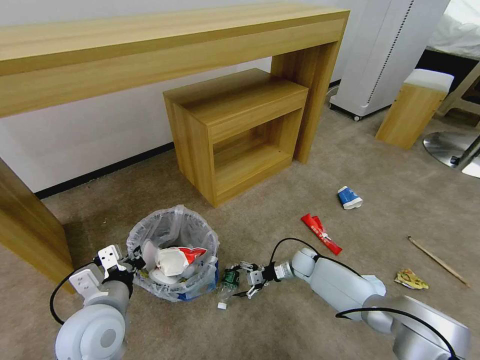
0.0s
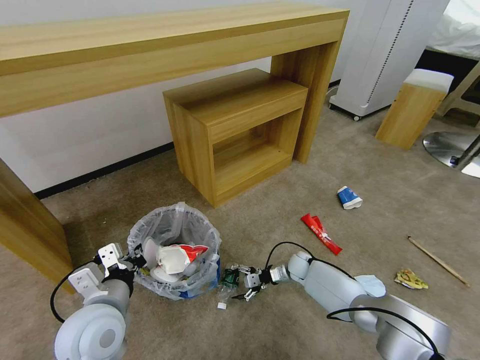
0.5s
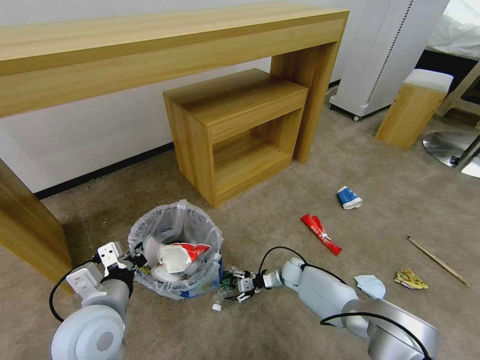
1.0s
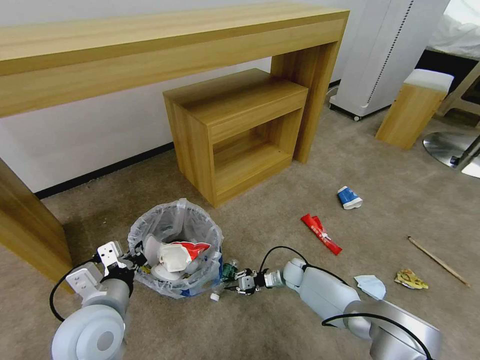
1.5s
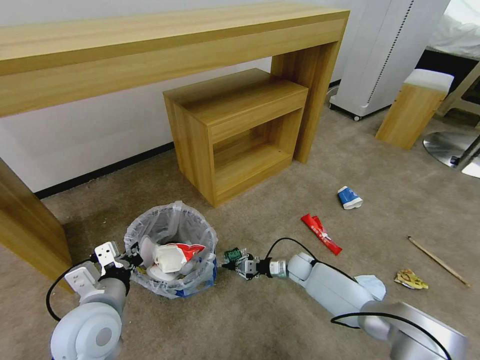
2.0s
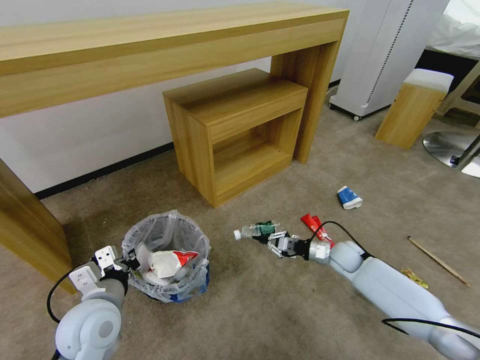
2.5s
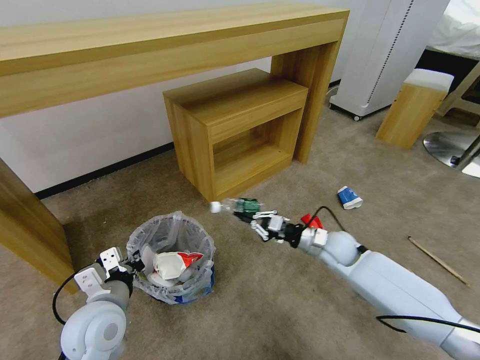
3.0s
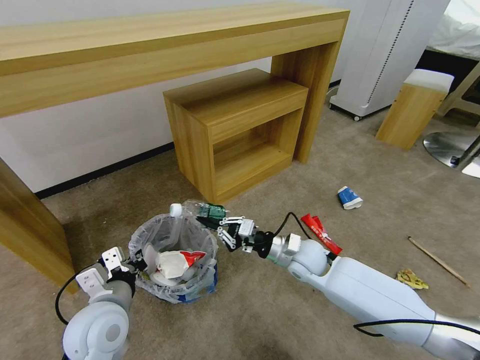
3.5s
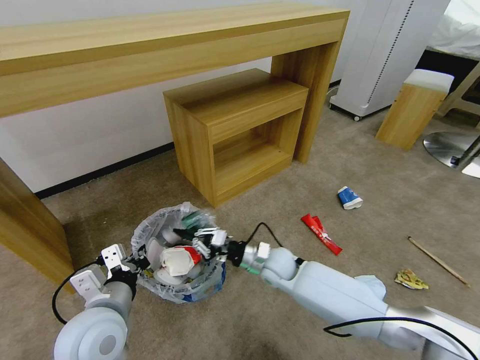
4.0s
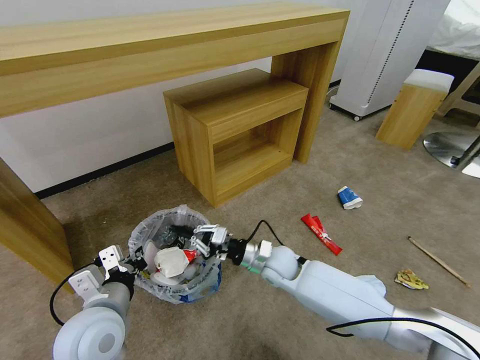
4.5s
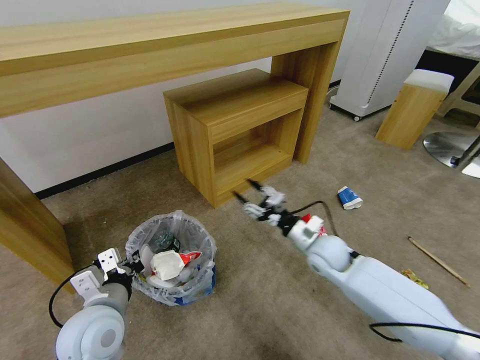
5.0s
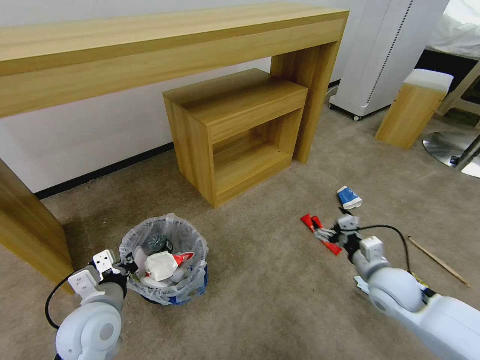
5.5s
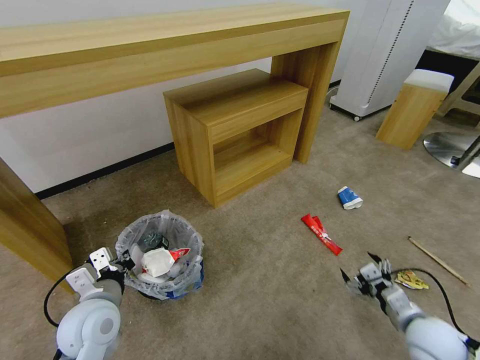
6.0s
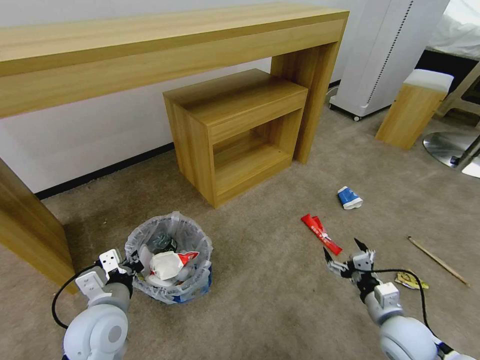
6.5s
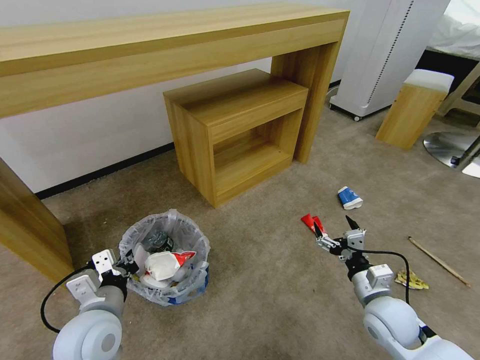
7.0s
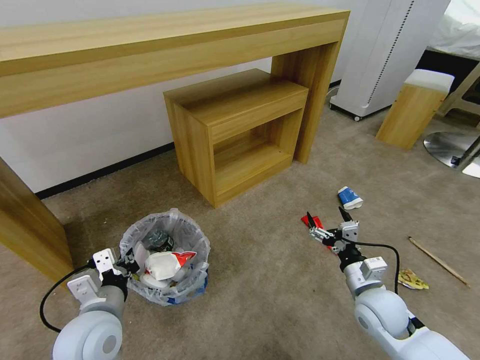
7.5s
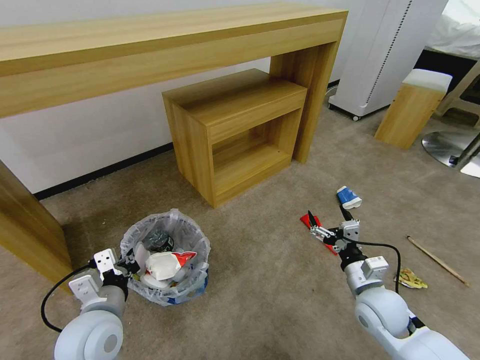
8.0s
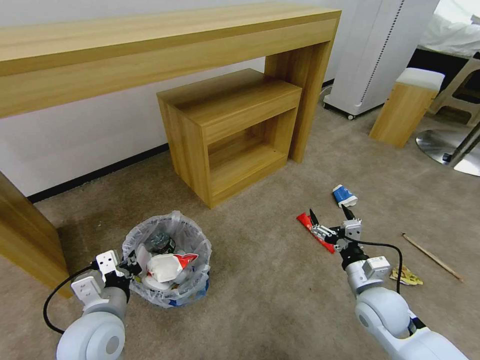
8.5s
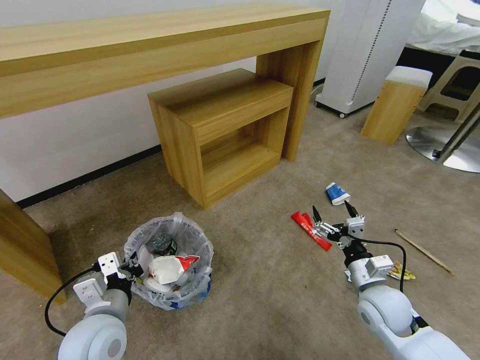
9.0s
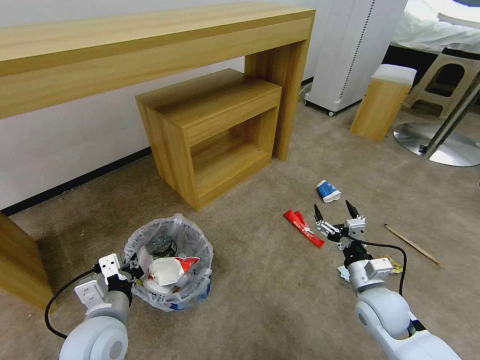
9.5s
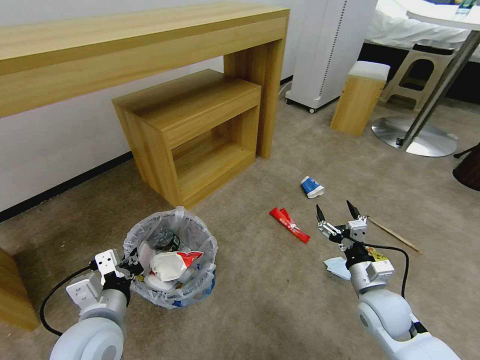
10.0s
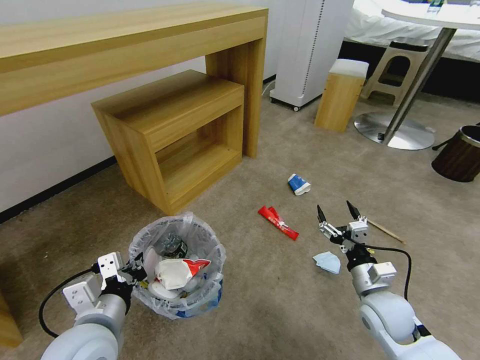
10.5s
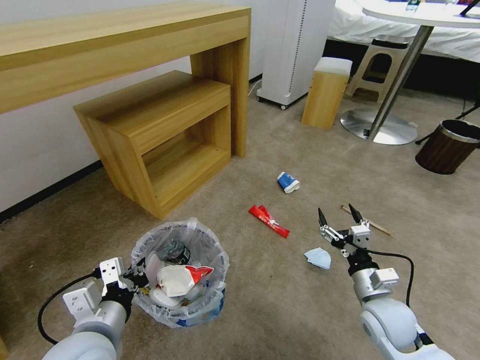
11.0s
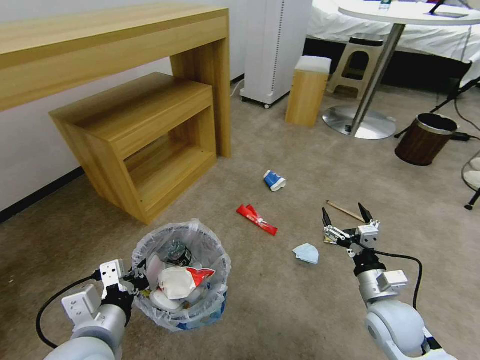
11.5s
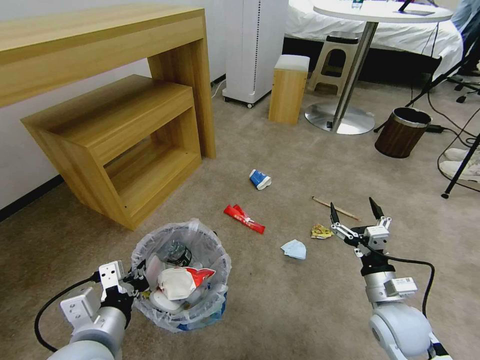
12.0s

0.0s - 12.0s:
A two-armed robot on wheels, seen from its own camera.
Task of the whole recording: Pick up the trash bin and place the garbage on the floor into it.
0.0s - 2.0s: The right gripper closes.
2.0s - 4.0s: The right gripper shifts roughly 20 cm upward, to the left and backward.
4.0s - 6.0s: The left gripper ends up about 5 cm from where it was. The right gripper is displaced to the right and backward by some 35 cm, and opens.
6.0s - 8.0s: The right gripper shifts approximately 10 cm to the left and forward.

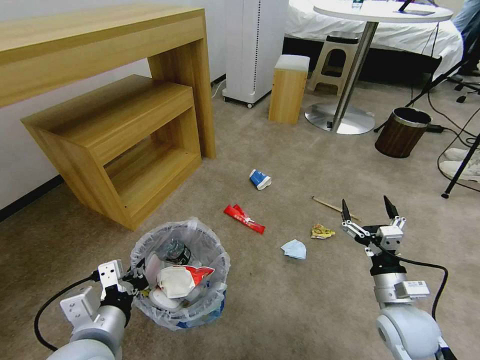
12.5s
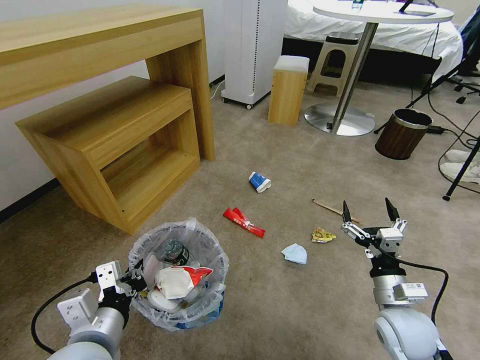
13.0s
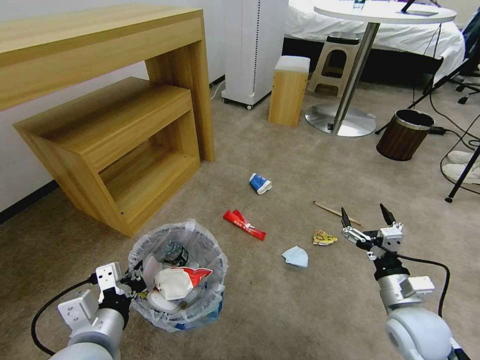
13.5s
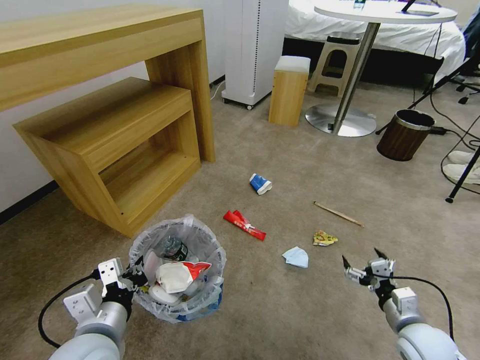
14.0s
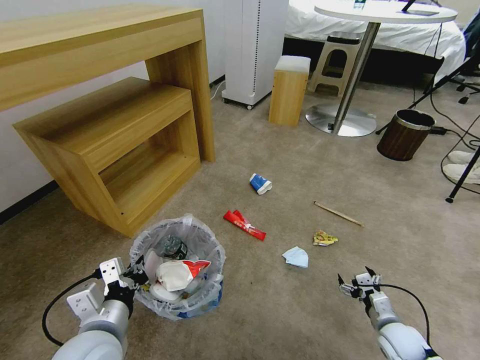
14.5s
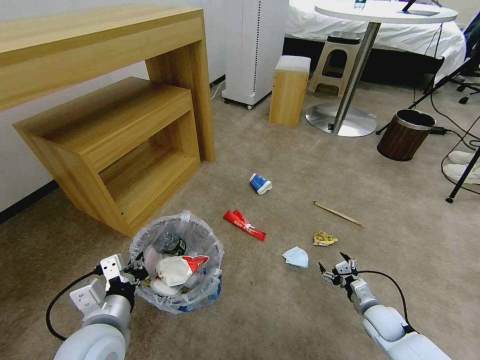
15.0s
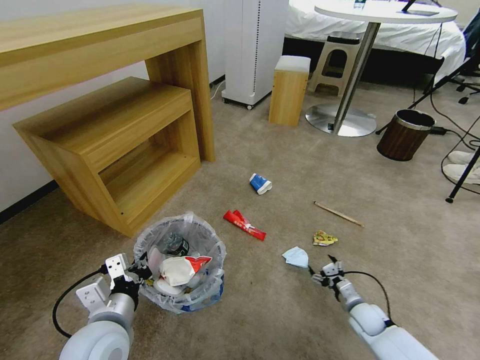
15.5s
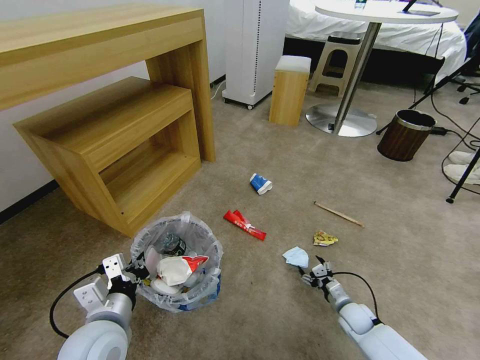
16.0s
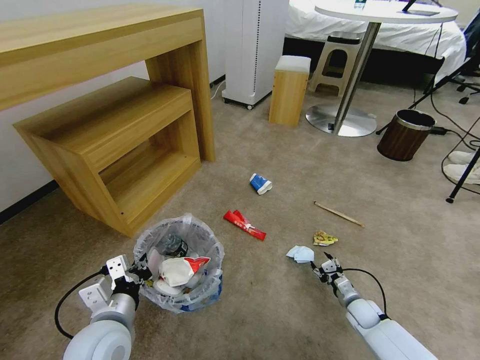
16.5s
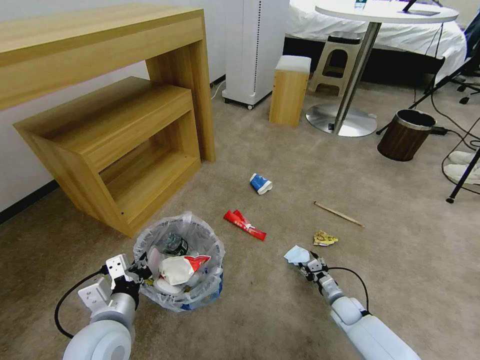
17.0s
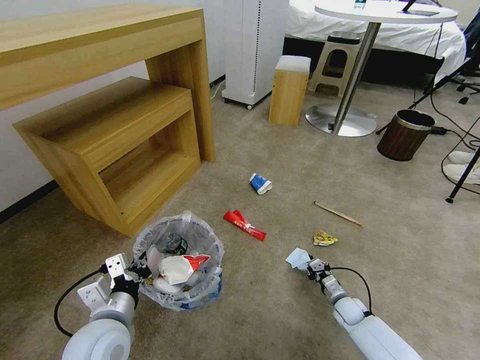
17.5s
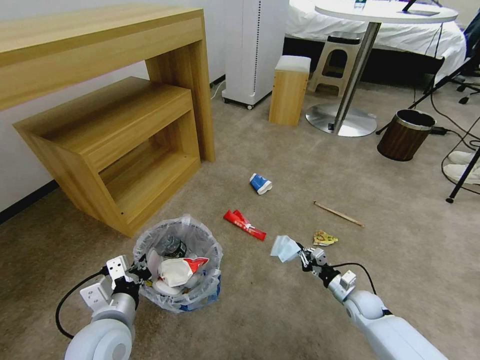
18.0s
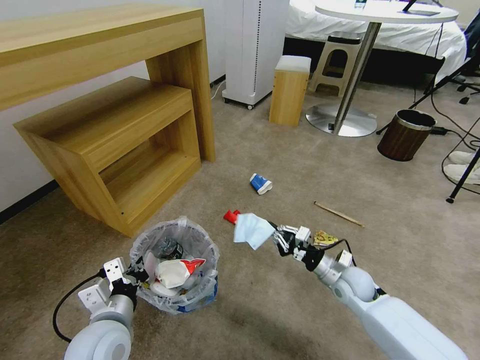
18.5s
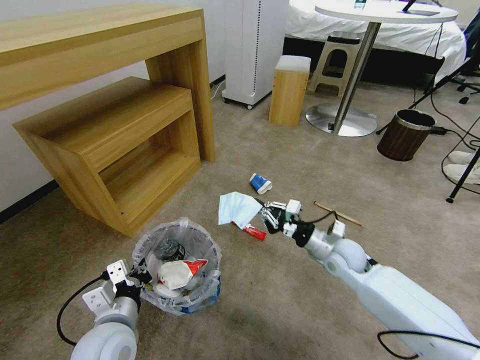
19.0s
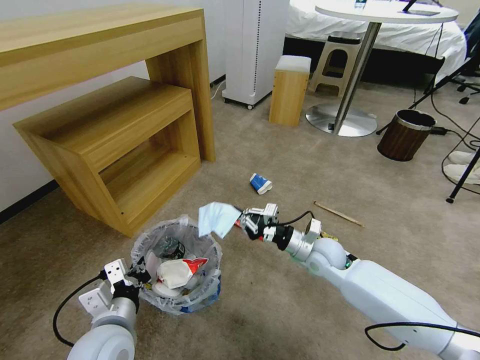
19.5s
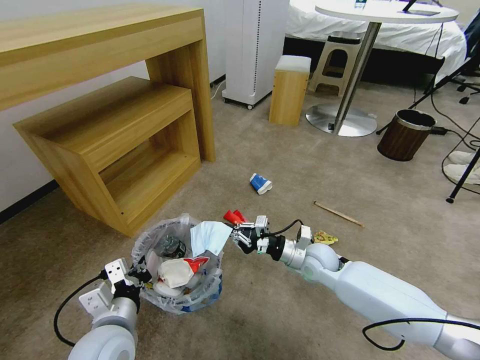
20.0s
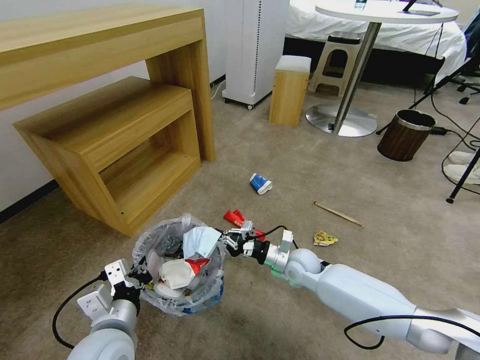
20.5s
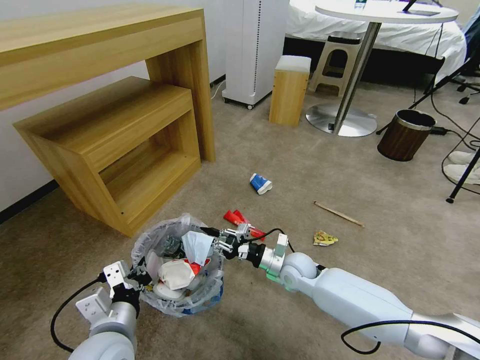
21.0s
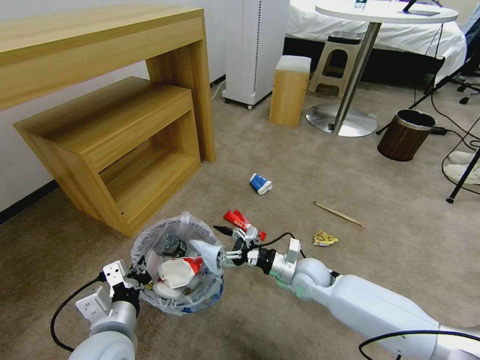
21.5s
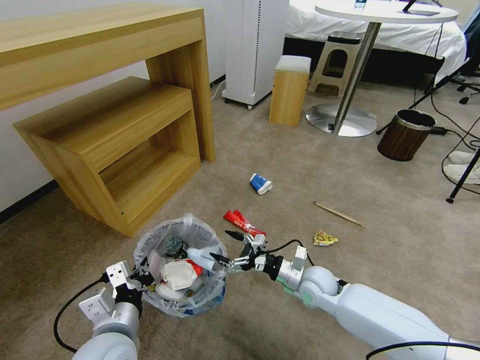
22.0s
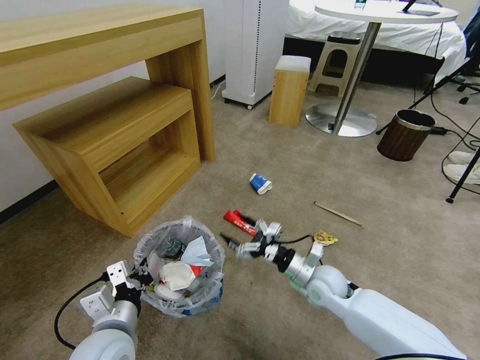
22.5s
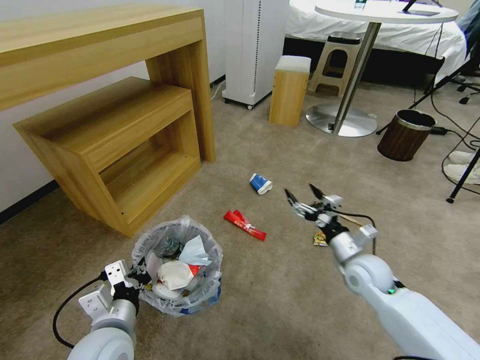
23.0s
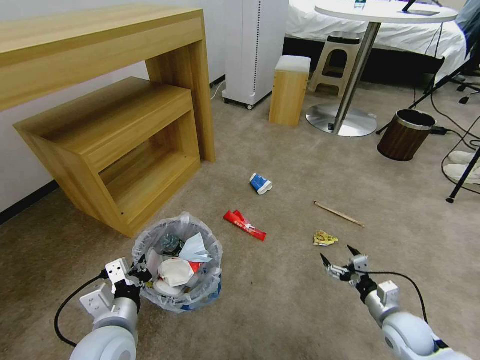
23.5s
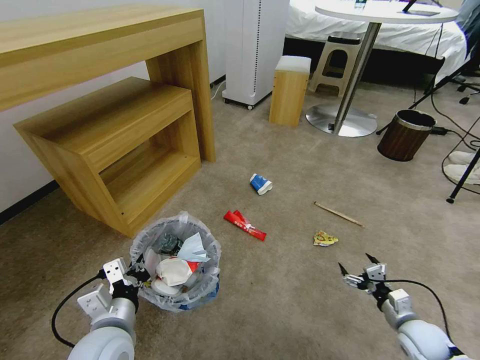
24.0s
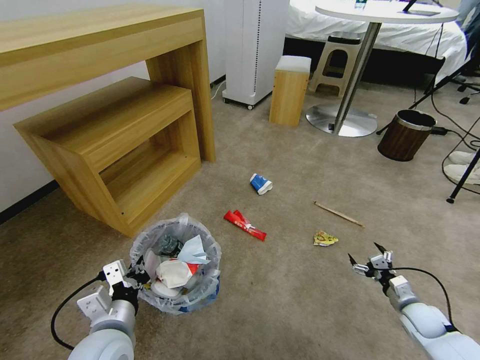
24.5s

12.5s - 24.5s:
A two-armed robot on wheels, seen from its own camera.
Task of the whole recording: Pick up the trash bin and place the garbage on the floor into it.
12.5s - 14.5s: The right gripper goes roughly 10 cm downward and to the right.
14.5s - 16.5s: The right gripper shifts roughly 15 cm downward and forward, and closes its fingers.
16.5s - 18.5s: The right gripper travels upward and to the left by approximately 20 cm, and closes.
18.5s - 20.5s: The right gripper travels to the left and forward by roughly 10 cm.
20.5s - 22.5s: The right gripper goes some 5 cm backward, and opens.
22.5s - 24.5s: The right gripper travels to the right by roughly 25 cm.

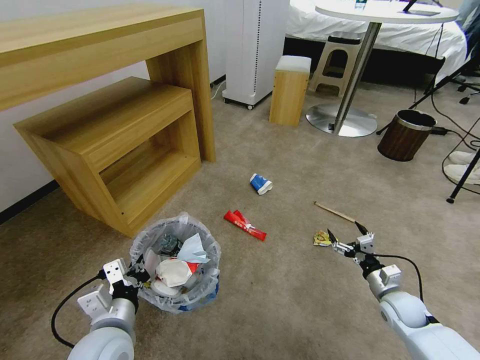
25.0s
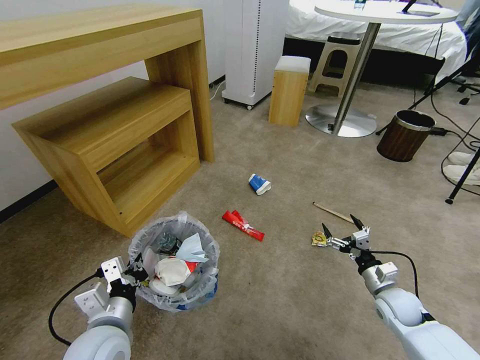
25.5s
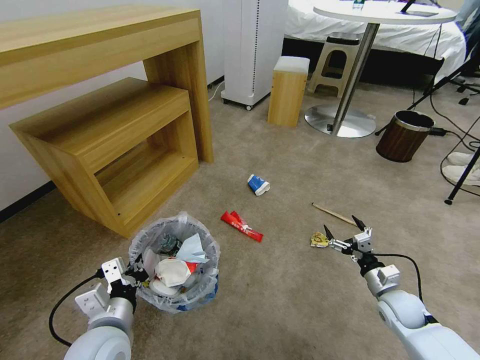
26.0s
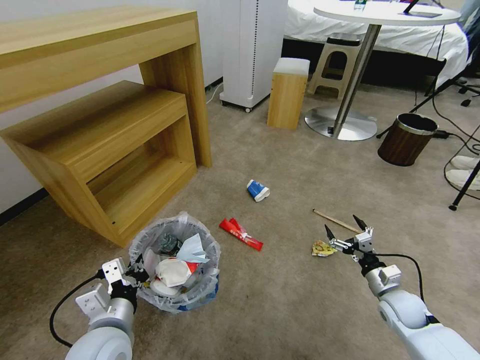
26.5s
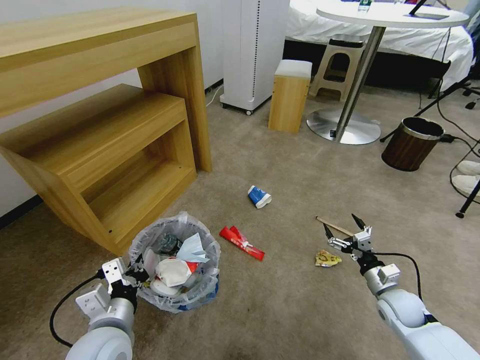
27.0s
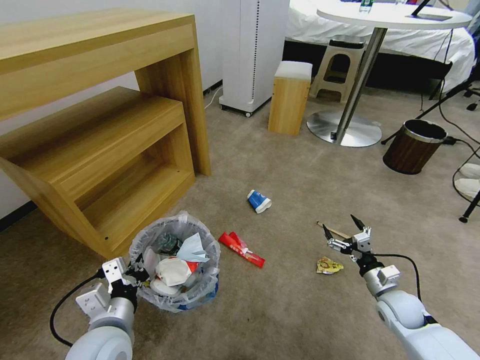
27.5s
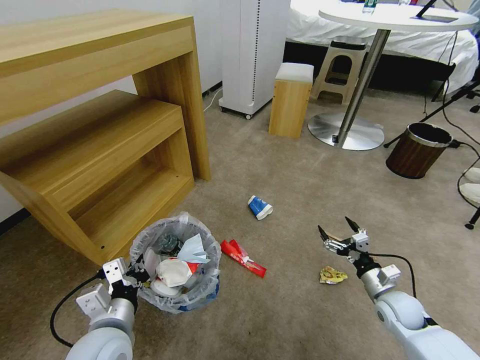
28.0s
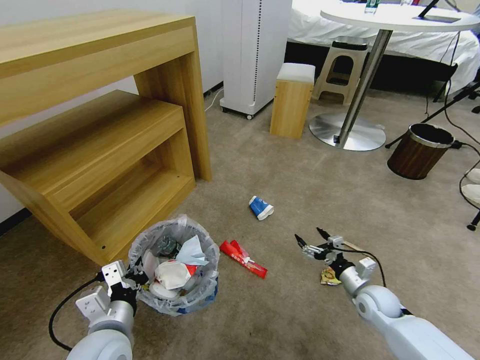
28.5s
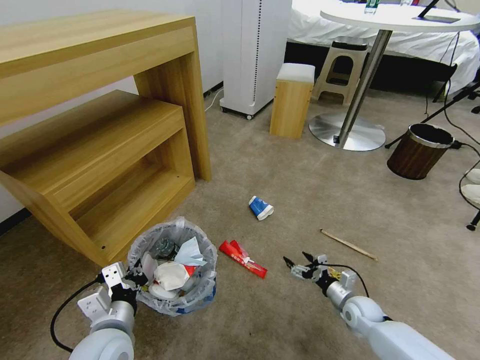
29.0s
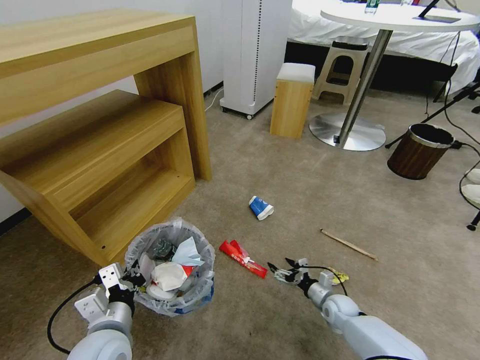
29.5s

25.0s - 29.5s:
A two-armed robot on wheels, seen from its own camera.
Task of the whole recording: Pick up the trash bin and place the garbage on the floor into it.
27.0s - 29.5s: The right gripper moves downward and to the left, some 15 cm.
